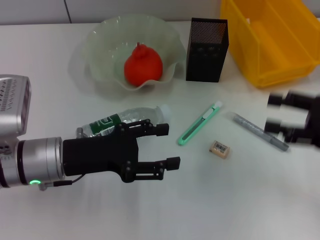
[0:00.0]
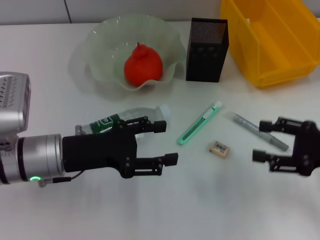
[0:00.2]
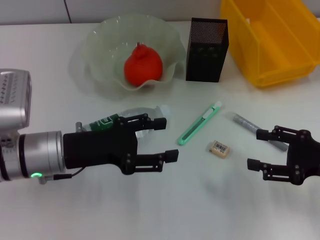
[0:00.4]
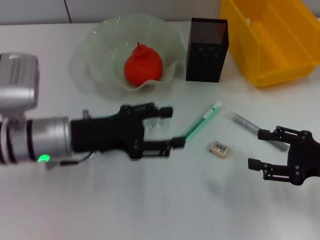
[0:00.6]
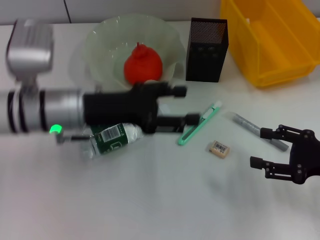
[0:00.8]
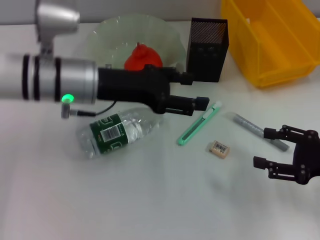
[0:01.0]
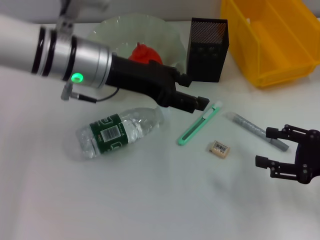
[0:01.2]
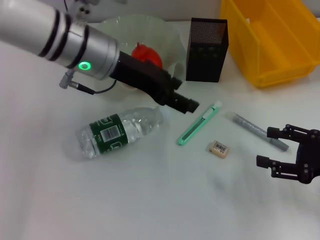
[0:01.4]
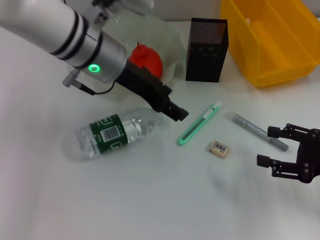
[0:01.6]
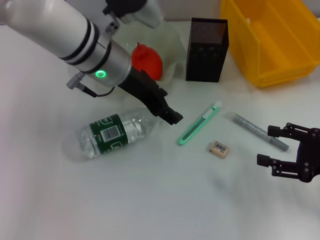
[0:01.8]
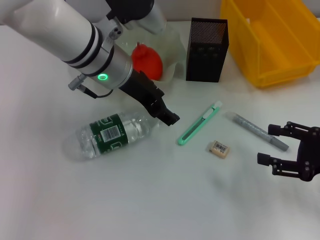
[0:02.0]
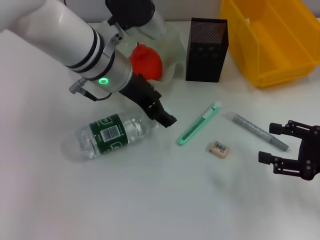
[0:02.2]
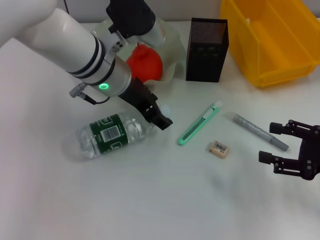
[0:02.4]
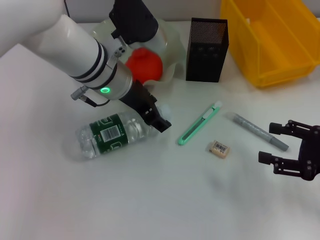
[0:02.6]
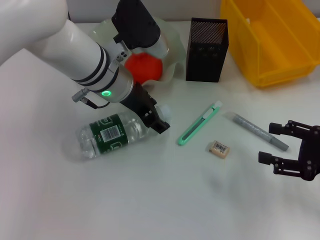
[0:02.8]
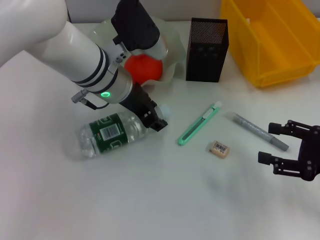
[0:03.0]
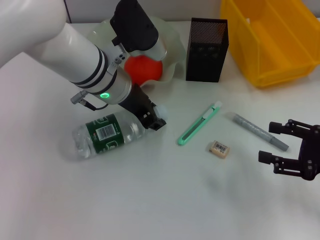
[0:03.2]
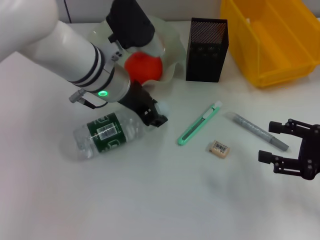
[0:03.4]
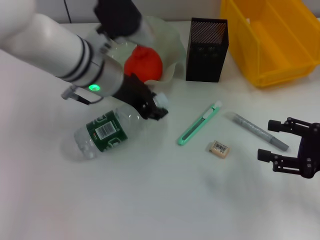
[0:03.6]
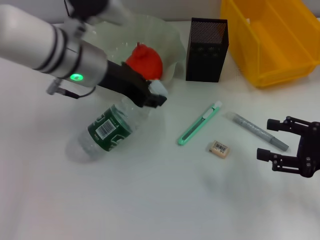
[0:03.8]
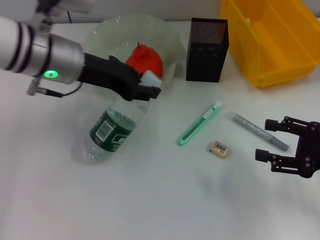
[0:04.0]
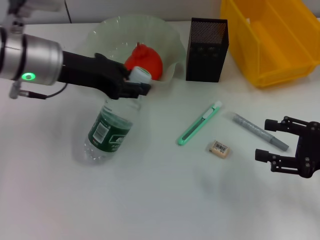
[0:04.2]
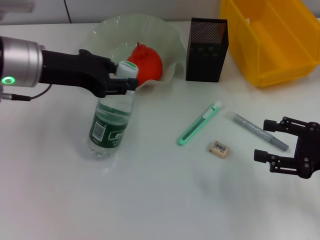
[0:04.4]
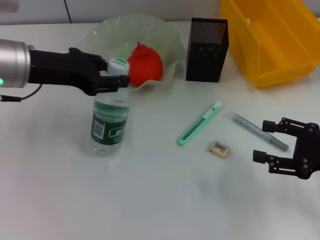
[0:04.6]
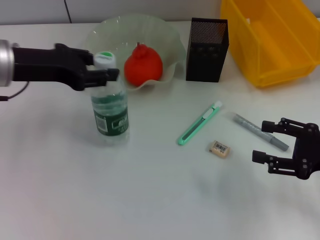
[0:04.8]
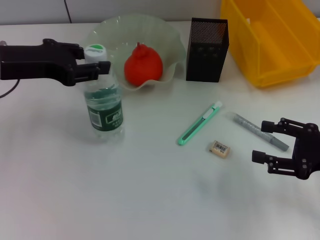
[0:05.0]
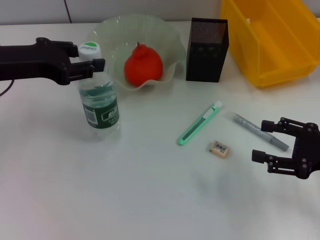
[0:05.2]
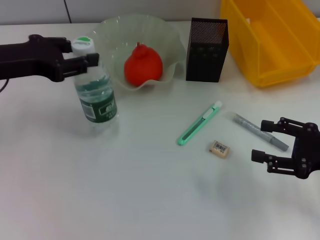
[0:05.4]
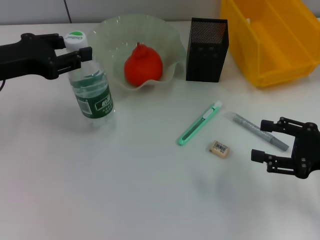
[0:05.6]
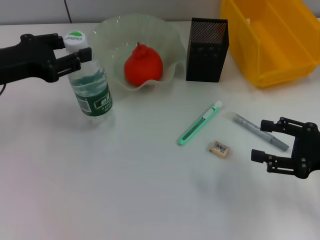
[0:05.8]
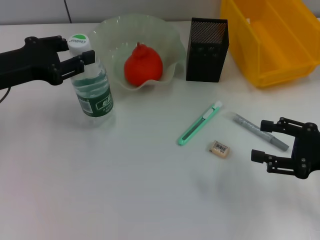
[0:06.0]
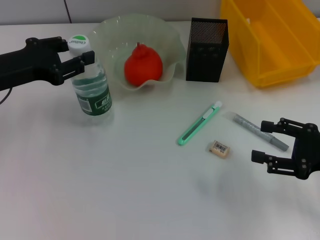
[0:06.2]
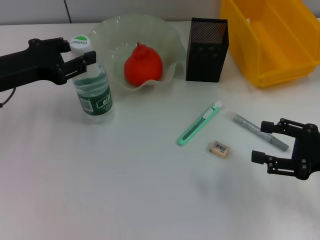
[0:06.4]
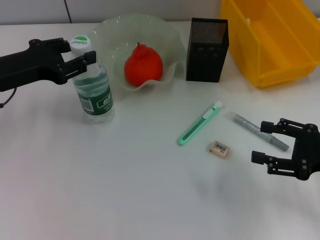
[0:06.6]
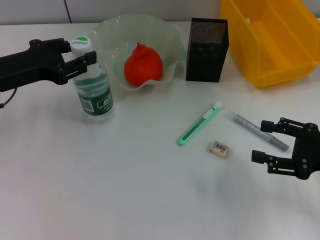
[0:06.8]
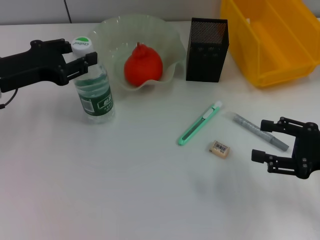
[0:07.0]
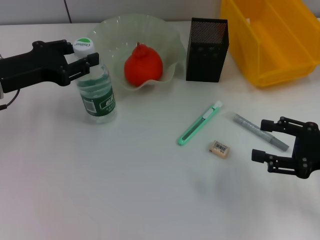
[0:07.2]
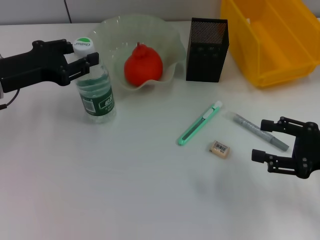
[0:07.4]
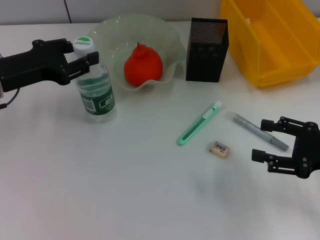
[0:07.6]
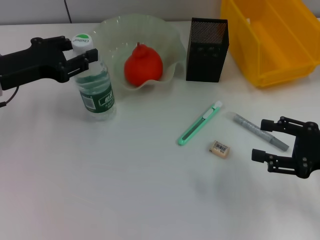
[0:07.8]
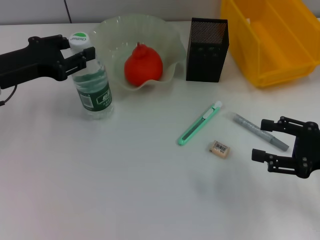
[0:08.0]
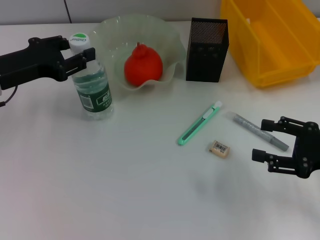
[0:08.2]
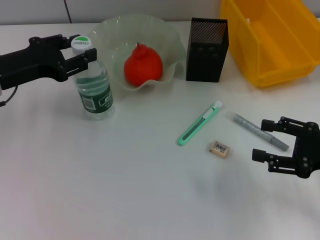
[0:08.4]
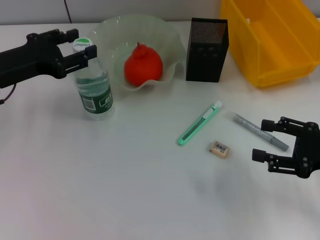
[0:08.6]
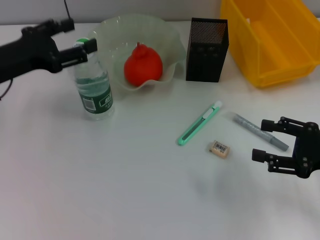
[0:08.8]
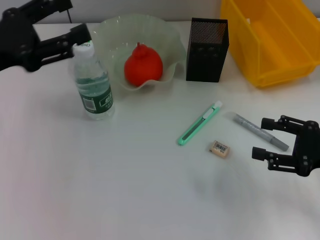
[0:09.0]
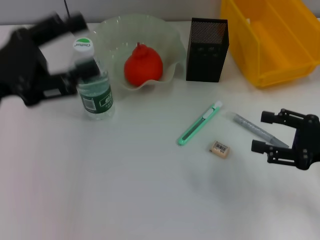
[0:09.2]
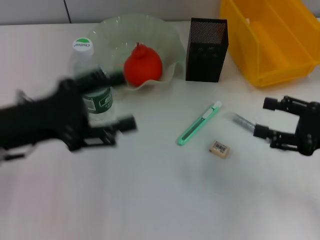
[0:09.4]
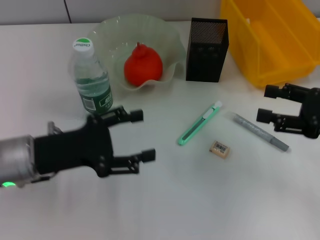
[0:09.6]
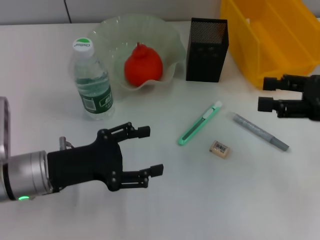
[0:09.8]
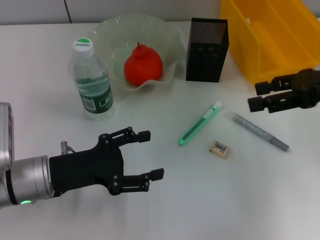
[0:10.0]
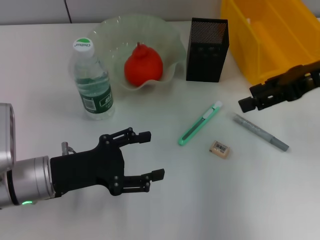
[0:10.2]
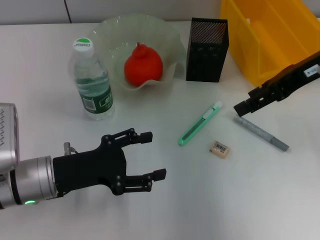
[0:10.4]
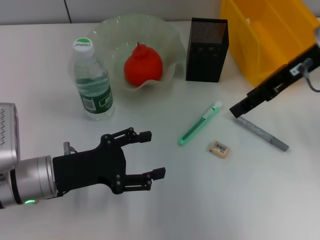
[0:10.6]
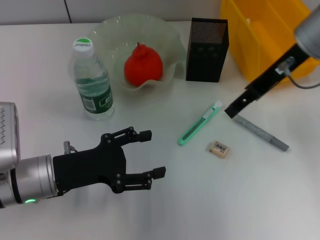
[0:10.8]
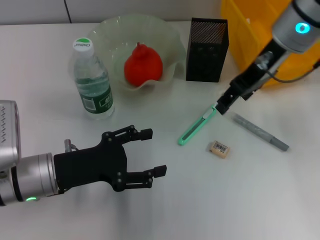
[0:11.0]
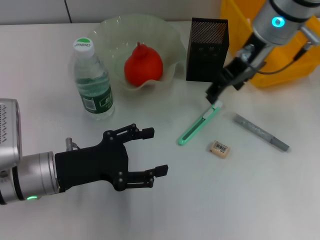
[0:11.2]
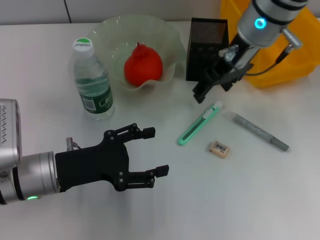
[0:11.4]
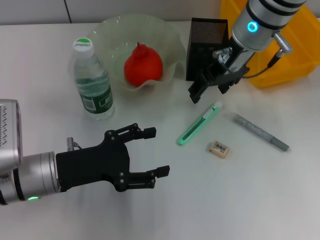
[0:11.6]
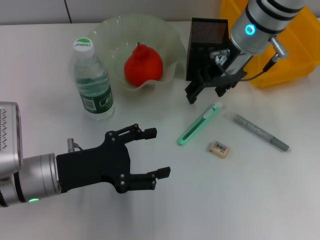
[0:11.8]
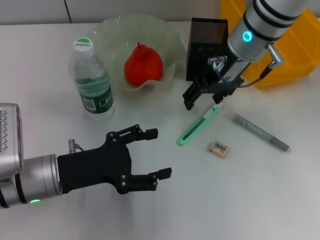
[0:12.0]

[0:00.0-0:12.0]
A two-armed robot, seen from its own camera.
Step, 0:00.0 to 0:03.0: Grab the water bottle with the left hand.
Step, 0:03.2 to 0:08.4: Place the water bottle on the table with the left hand.
0:00.0 to 0:01.6: The right gripper shifts by some 5 cm. Meanwhile the left gripper goes roughly 20 cm forward, upward and to the right.
0:01.6 to 0:03.0: The left gripper ends up about 5 cm from where it was.
0:03.0 to 0:04.4: The left gripper is displaced to the left by approximately 10 cm, and closes up.
0:04.4 to 0:06.0: The left gripper heads to the left, covering about 10 cm.
0:06.0 to 0:07.6: There are only small adjustments of the grippers.
0:07.6 to 0:09.0: The left gripper ends up approximately 5 cm from where it was, and opens its fingers.
0:09.0 to 0:10.4: The left gripper is displaced downward and to the right by roughly 15 cm. The right gripper heads upward, forward and to the left, covering approximately 20 cm.
0:10.4 to 0:12.0: The right gripper goes approximately 15 cm to the left and forward.

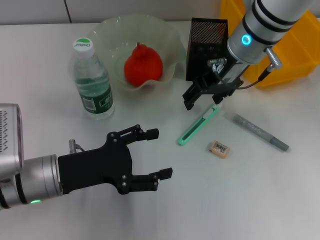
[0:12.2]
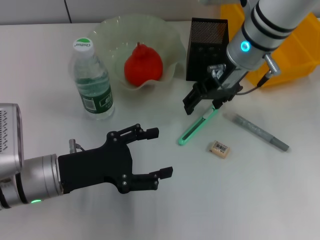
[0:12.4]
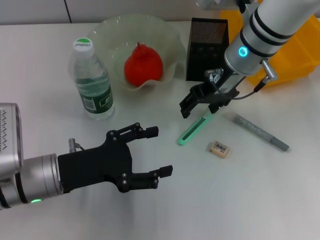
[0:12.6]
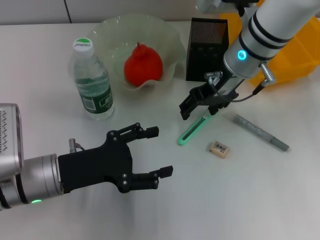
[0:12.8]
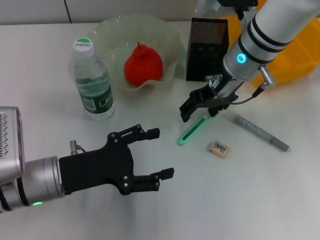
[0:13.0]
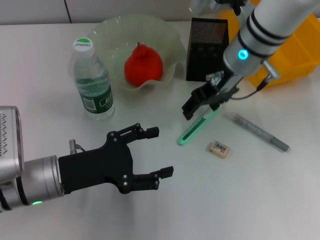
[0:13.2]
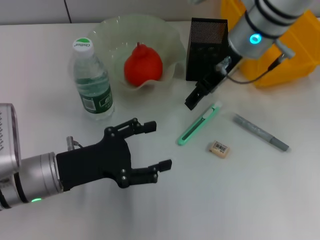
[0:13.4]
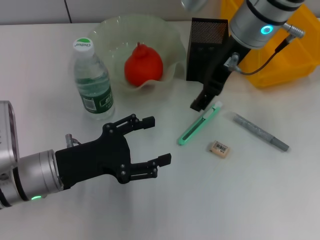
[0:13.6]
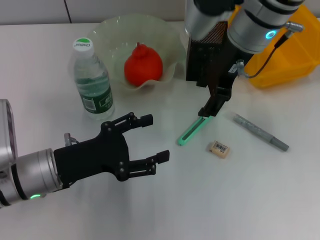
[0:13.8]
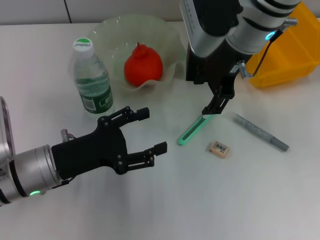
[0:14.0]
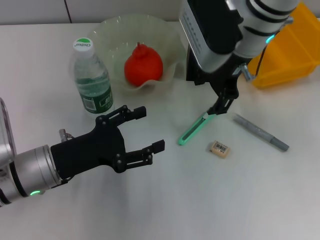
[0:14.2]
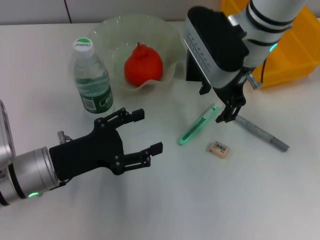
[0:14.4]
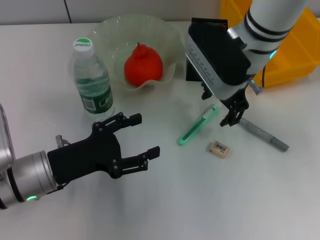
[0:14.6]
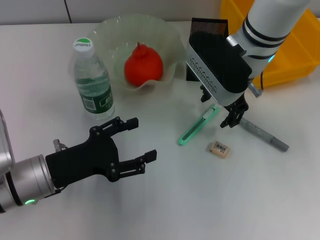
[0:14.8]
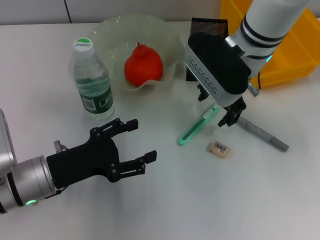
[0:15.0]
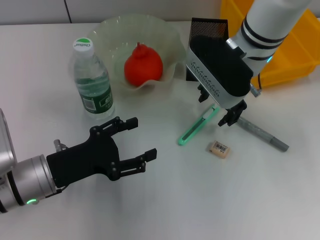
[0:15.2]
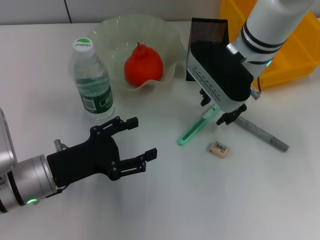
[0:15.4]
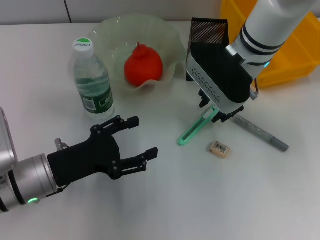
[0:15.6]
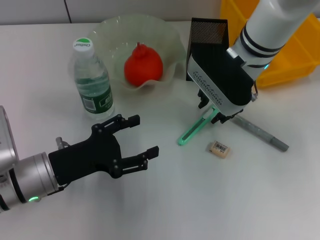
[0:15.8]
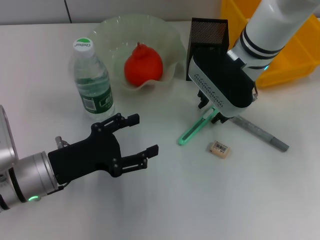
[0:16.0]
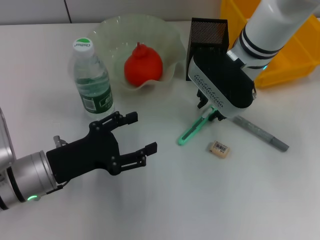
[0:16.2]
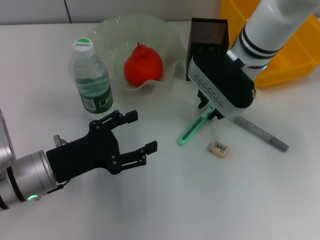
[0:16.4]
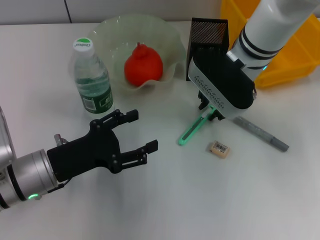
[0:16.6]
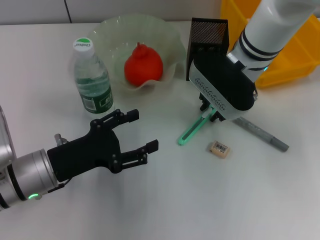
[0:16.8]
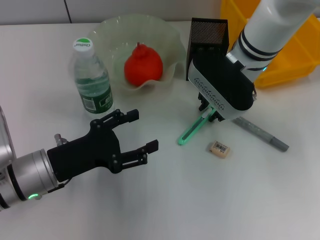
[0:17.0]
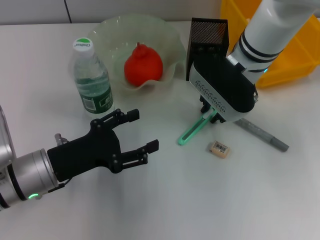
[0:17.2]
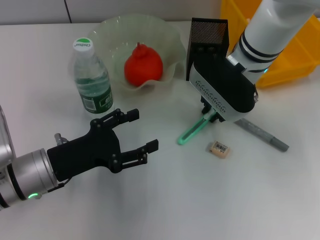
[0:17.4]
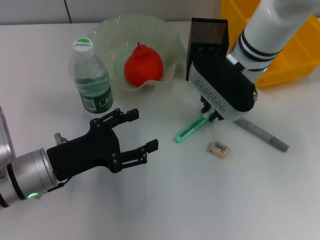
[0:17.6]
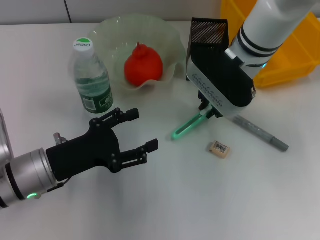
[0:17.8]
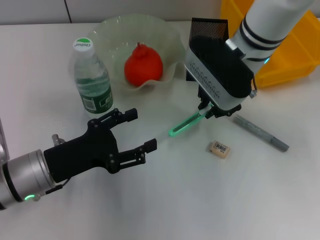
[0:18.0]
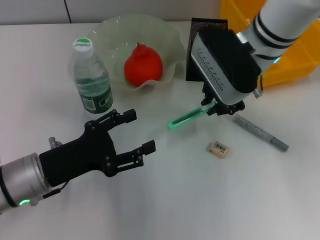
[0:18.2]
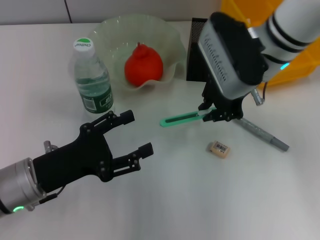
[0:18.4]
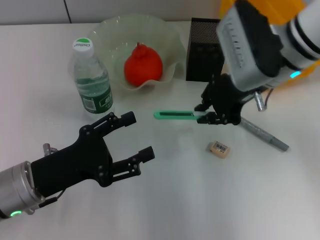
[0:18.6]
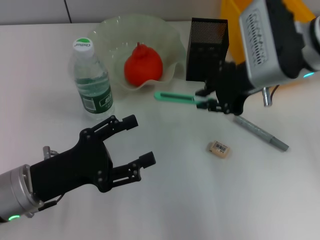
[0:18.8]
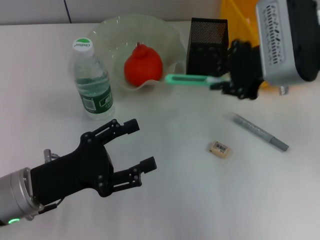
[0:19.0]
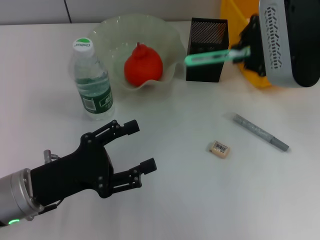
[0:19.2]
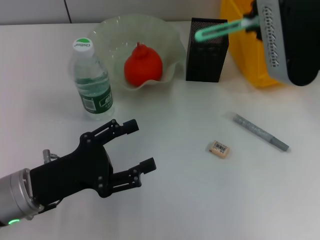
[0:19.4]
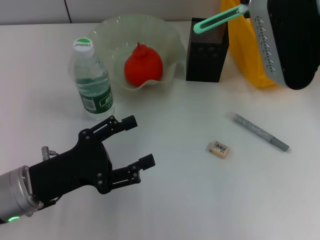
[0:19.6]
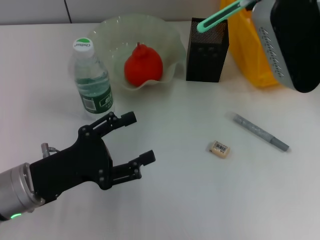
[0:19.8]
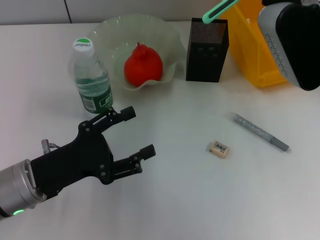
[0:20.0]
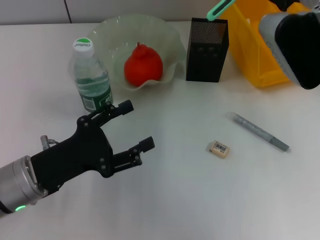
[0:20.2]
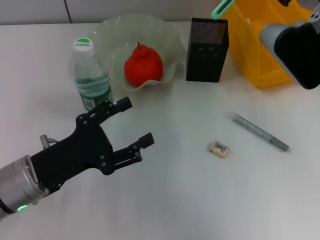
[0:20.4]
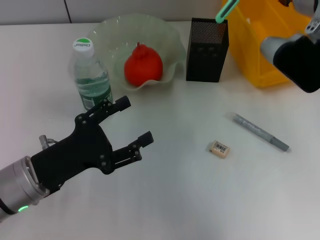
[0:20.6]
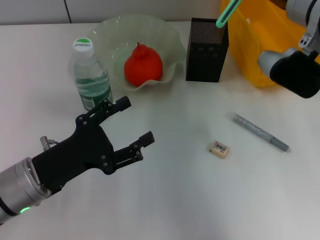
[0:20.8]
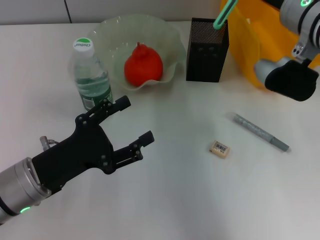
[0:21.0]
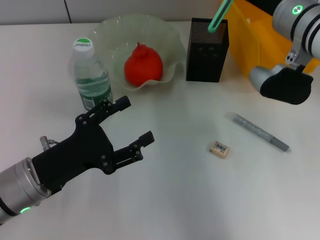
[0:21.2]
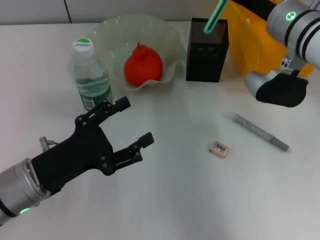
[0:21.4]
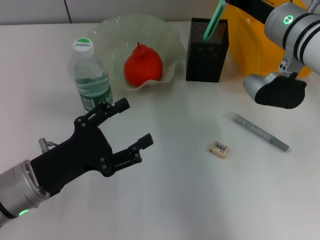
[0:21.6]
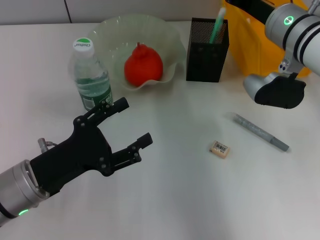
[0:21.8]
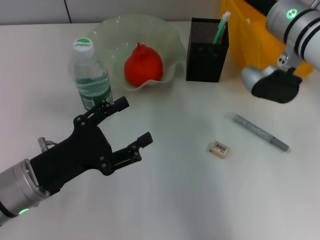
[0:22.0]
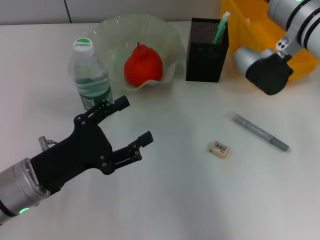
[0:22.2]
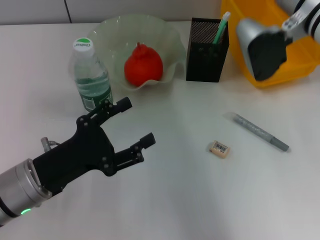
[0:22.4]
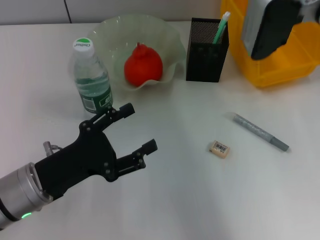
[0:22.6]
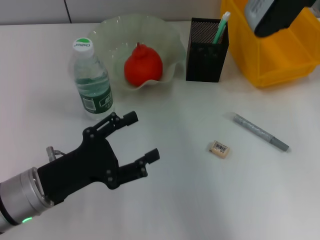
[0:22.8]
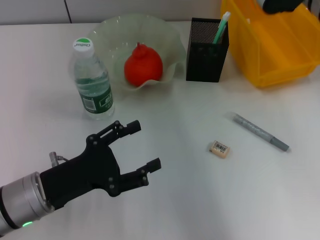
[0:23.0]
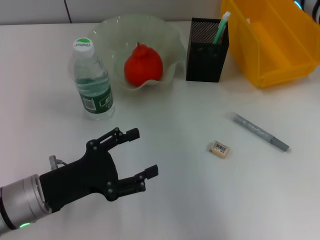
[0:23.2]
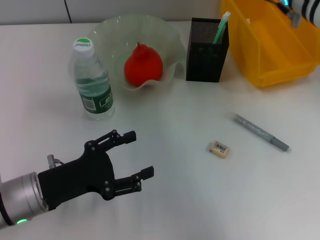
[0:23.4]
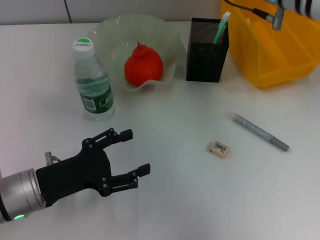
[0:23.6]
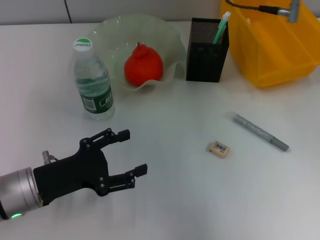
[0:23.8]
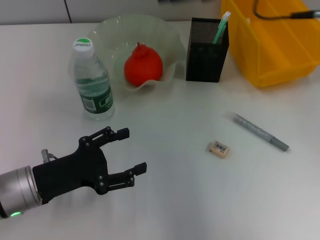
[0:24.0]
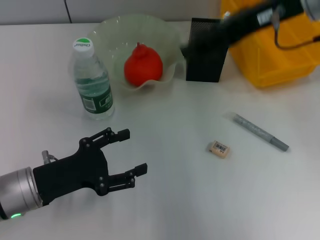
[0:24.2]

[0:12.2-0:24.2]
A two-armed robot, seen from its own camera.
Step, 0:12.2 to 0:17.4: Grab the blue utility knife with the right hand.
Step, 0:17.6 to 0:21.8: Place the blue utility knife into the pen holder with the right hand.
0:13.8 to 0:15.2: The right gripper shifts approximately 5 cm downward.
0:15.2 to 0:16.6: The right gripper closes.
0:16.6 to 0:18.2: The grippers make only small movements.
0:18.2 to 0:19.8: The right gripper moves upward and backward, about 10 cm.
0:19.8 to 0:21.2: The right gripper shifts approximately 10 cm downward.
0:21.2 to 0:22.6: The right gripper opens its fingers.
0:22.6 to 0:24.2: The right gripper travels upward by some 5 cm.
